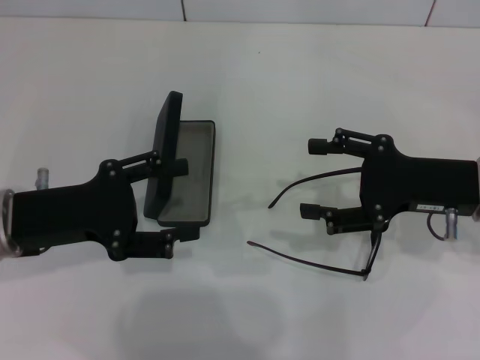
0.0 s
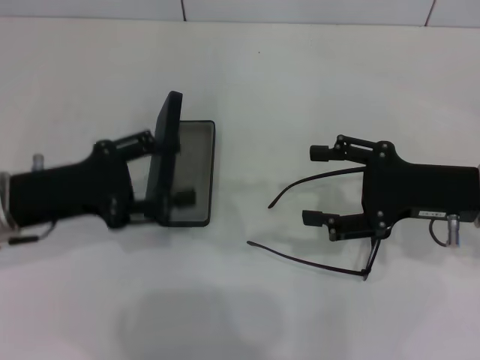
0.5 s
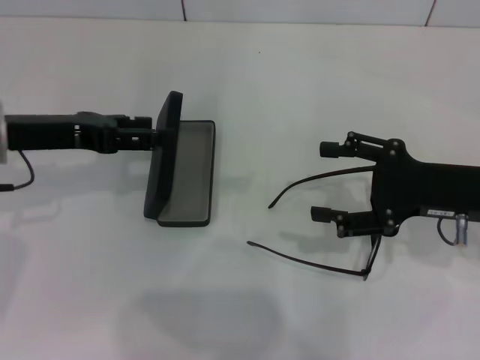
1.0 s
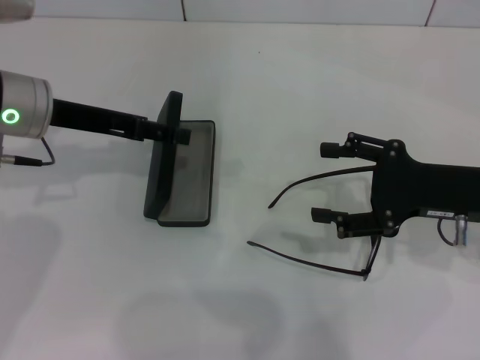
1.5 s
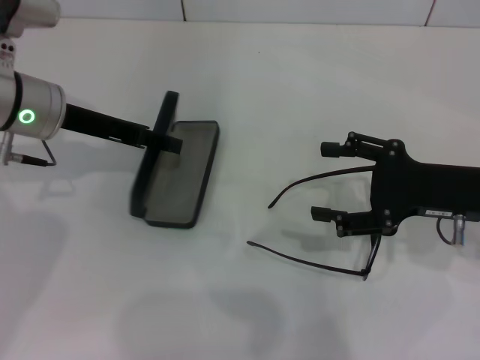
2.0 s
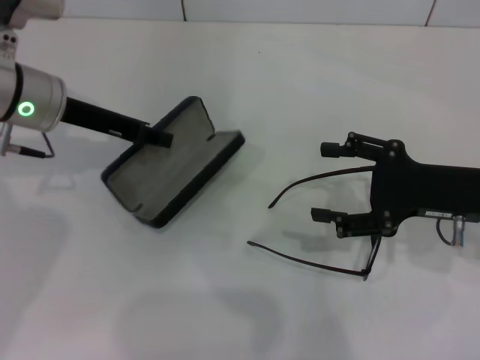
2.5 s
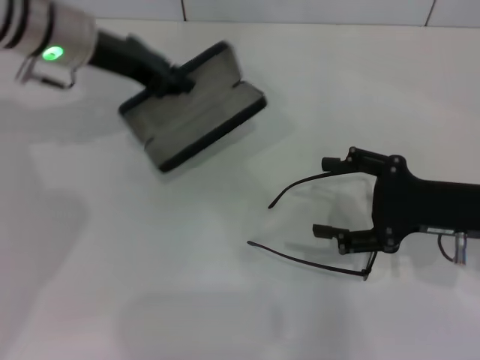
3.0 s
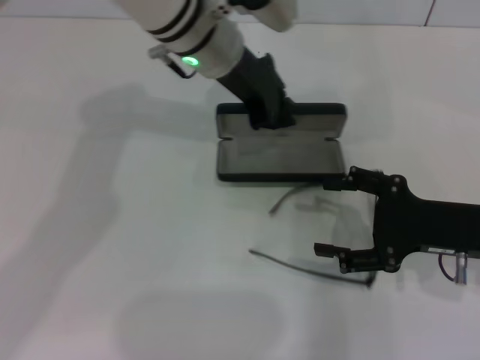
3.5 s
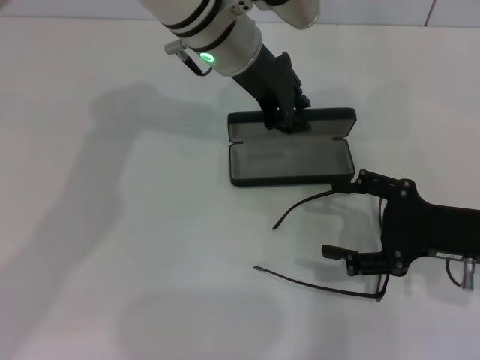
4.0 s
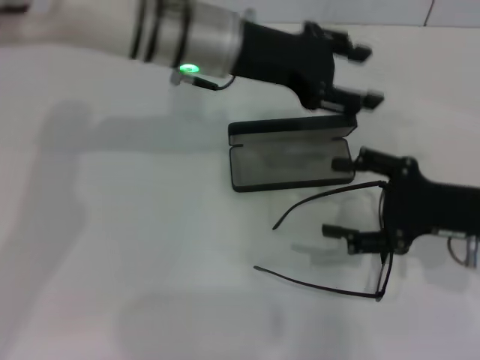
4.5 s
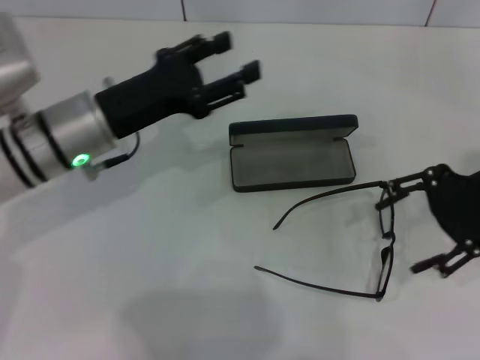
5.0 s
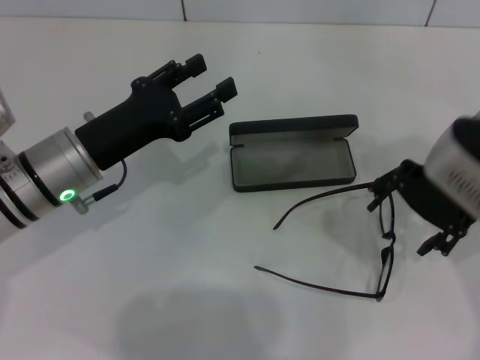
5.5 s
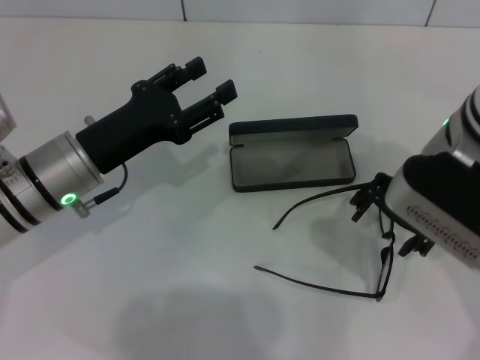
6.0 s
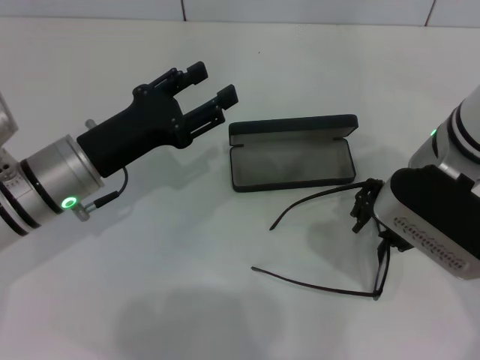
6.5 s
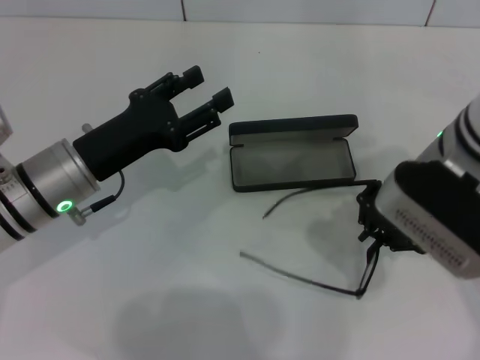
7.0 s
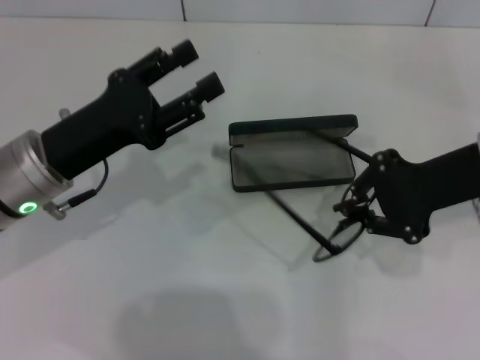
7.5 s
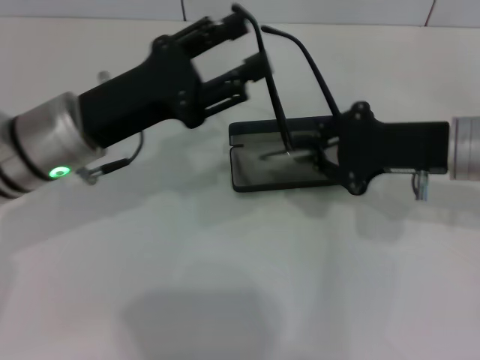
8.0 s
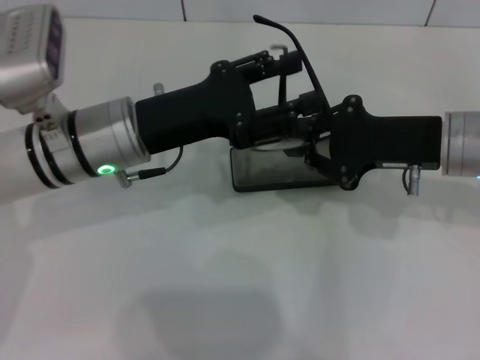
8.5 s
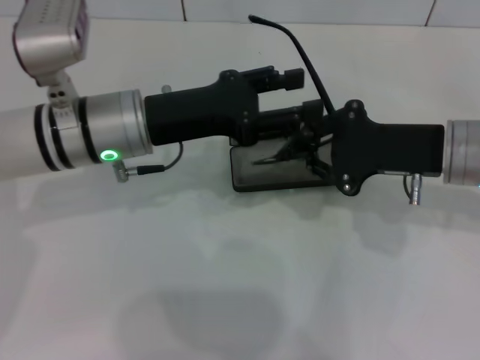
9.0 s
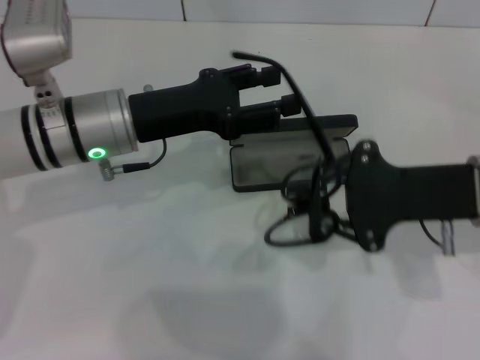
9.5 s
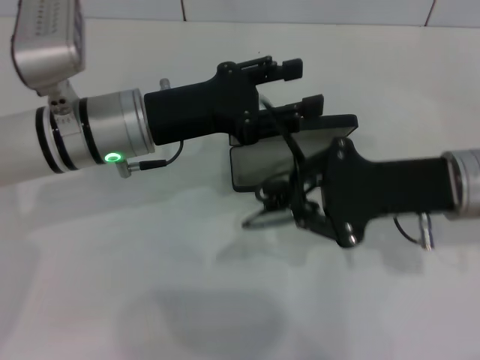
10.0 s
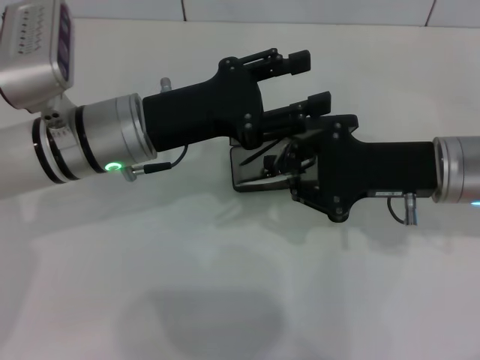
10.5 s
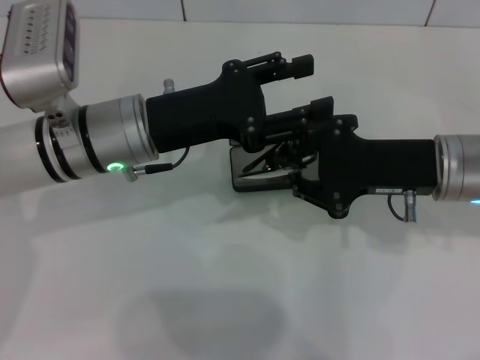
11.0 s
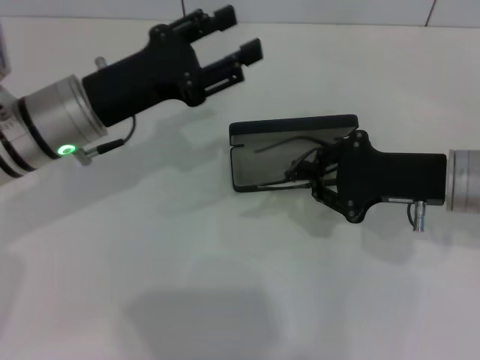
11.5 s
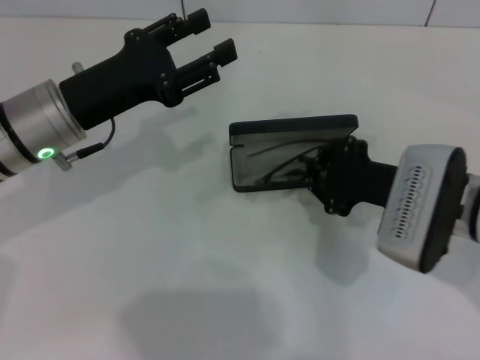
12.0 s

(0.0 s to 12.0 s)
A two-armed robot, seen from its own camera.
Step, 0.0 s - 2.0 s: Grab the glasses case with your left hand.
Step, 3.0 s - 4.0 s: Place the glasses case in the center of the table with your left hand.
Step, 4.5 s - 6.5 s: Grab the eyeglass frame with your right hand.
Step, 7.0 s - 11.0 s: Lift the glasses with your right hand.
0.0 s - 2.0 s: The left gripper goes approximately 10 cm forward.
2.0 s - 4.0 s: The left gripper heads to the right, covering some 20 cm, and closes its fingers.
4.0 s - 6.0 s: The left gripper shifts approximately 25 cm to the left, backward and downward, and opens up, while the right gripper heads to the left, upward and forward, covering some 15 cm.
6.0 s - 8.0 s: The left gripper ends up roughly 5 cm from where it was; the right gripper moves to the right, some 5 cm, and closes up.
10.0 s - 12.0 s: The left gripper is displaced to the left by approximately 5 cm.

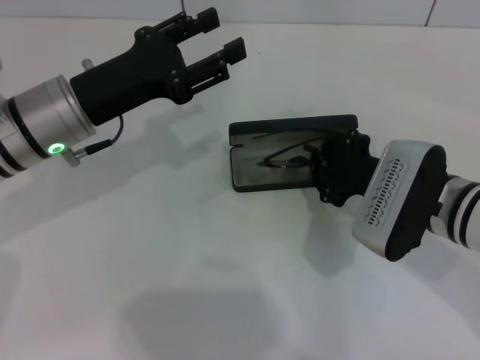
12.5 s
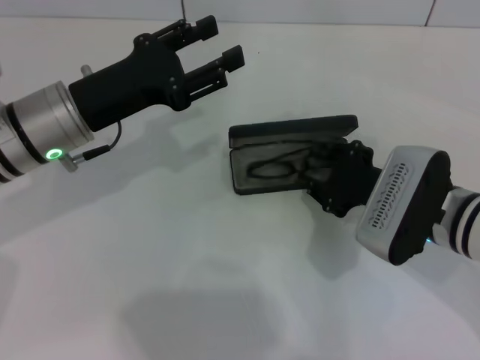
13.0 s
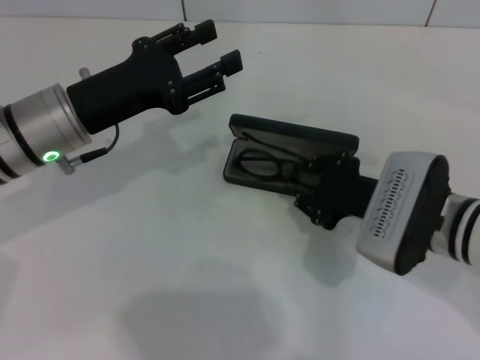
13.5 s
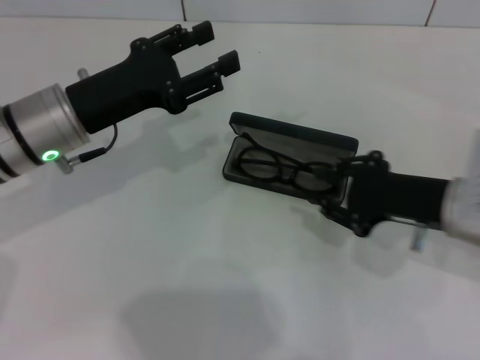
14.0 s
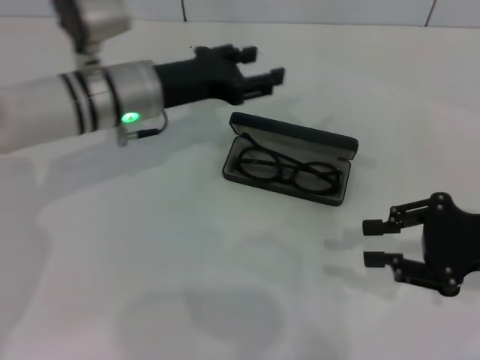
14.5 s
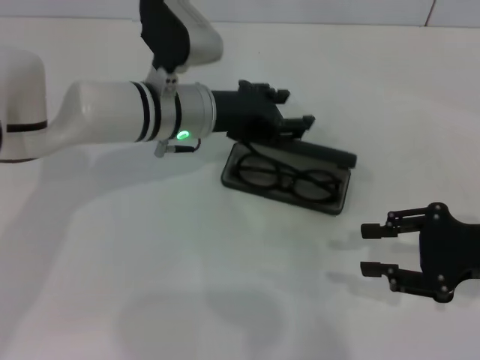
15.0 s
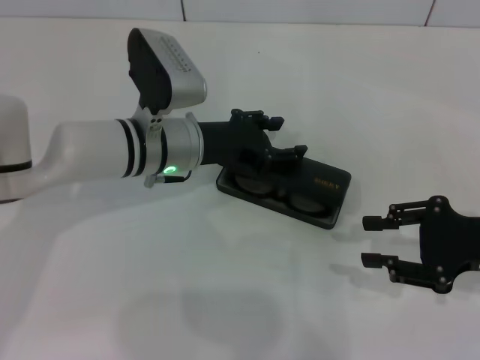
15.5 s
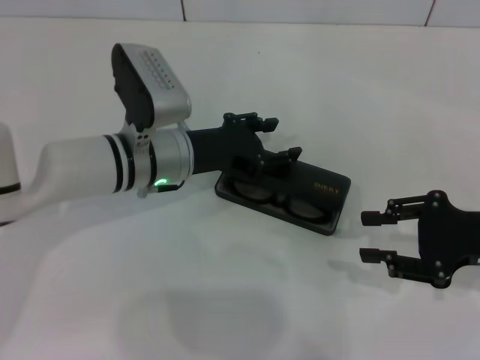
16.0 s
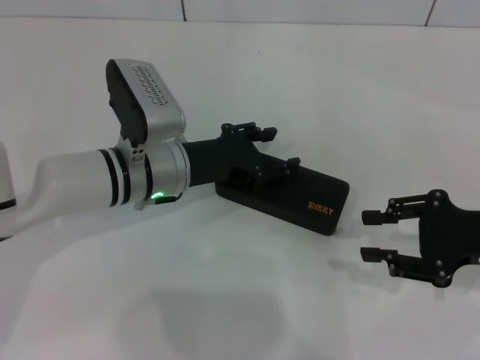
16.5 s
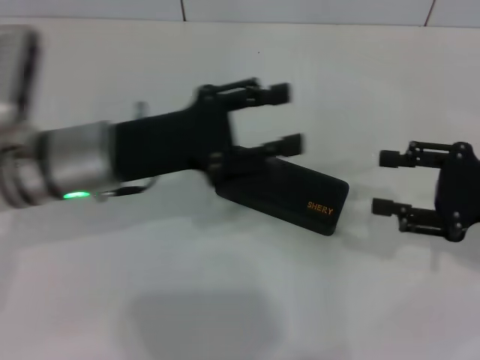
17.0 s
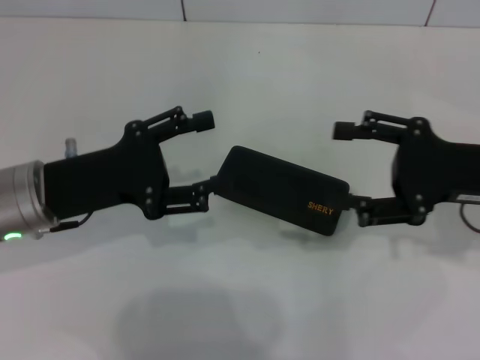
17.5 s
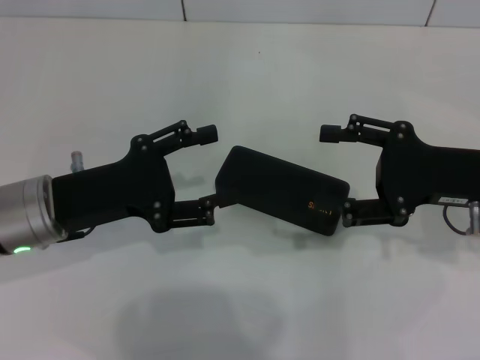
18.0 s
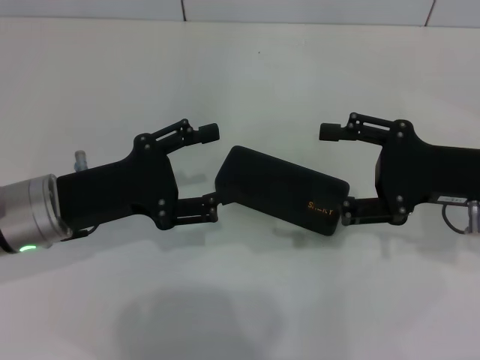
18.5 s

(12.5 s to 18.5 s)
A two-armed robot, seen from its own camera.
Step, 14.0 s - 16.0 s: Close the glasses case with your left hand.
12.5 s - 14.5 s: The right gripper is displaced to the right by approximately 10 cm. Meanwhile the left gripper is displaced forward and to the right by about 10 cm.
14.5 s - 16.5 s: The left gripper is displaced downward by about 5 cm.
16.5 s - 18.5 s: The left gripper shifts about 10 cm to the left and backward. The right gripper changes place by about 5 cm, and opens up.

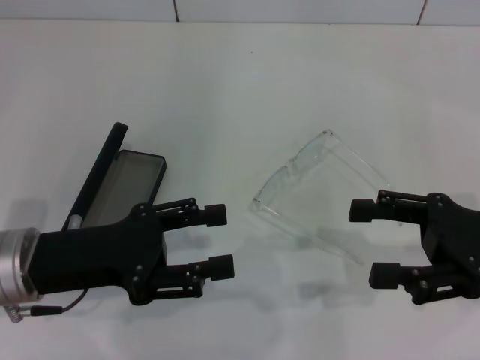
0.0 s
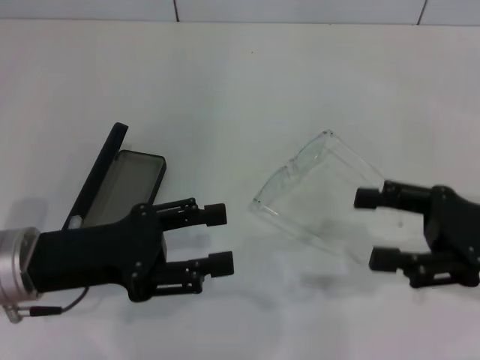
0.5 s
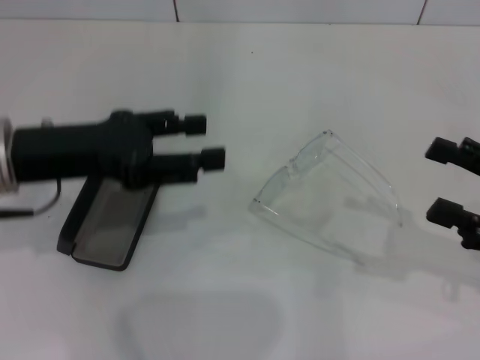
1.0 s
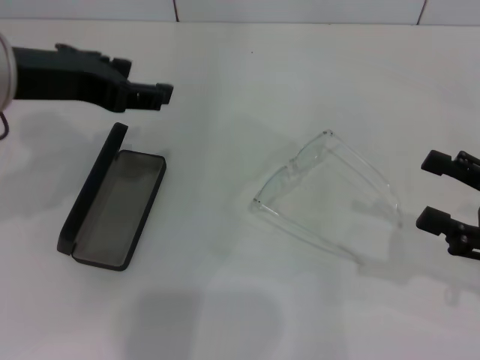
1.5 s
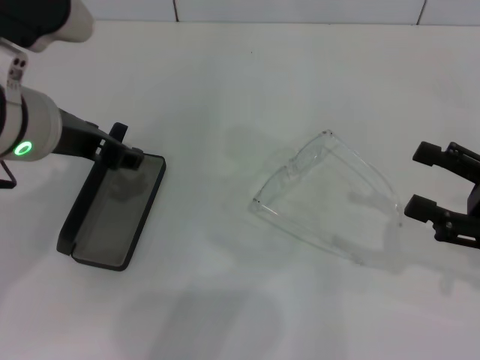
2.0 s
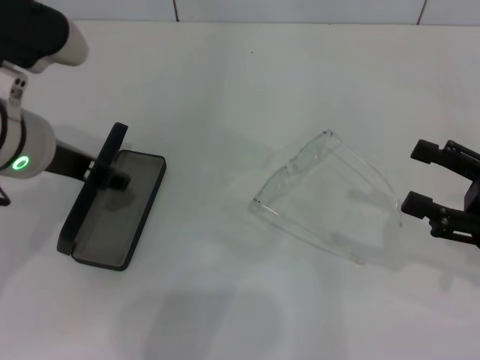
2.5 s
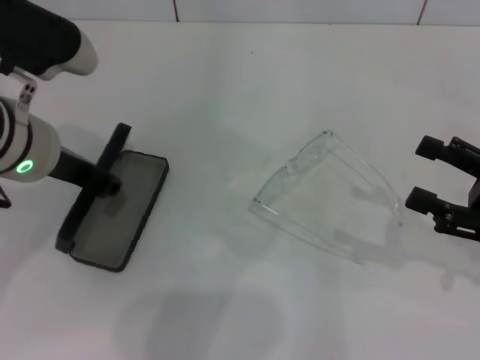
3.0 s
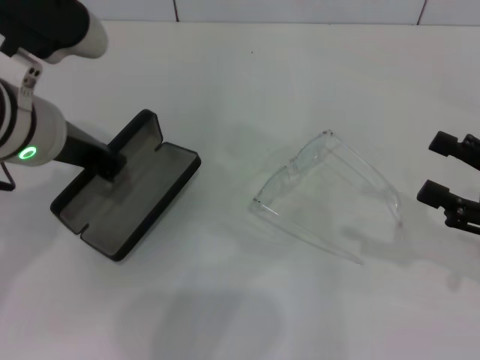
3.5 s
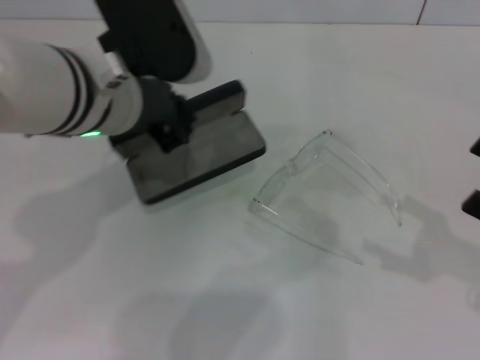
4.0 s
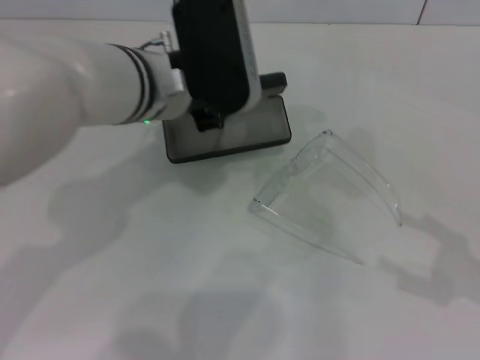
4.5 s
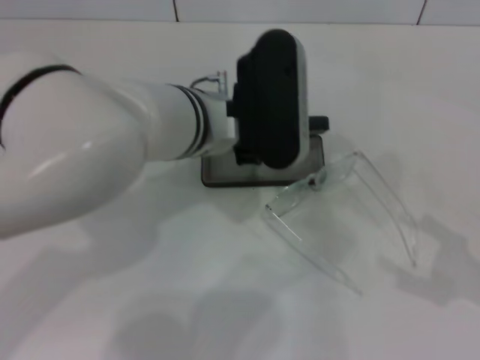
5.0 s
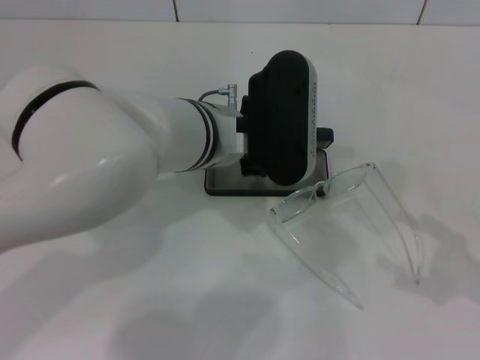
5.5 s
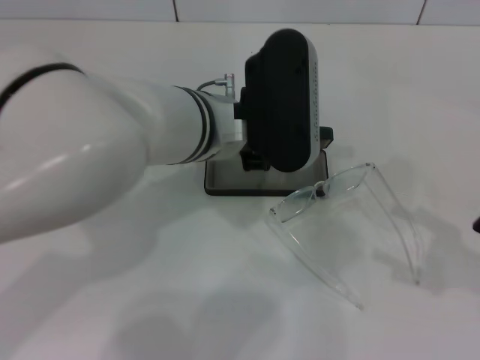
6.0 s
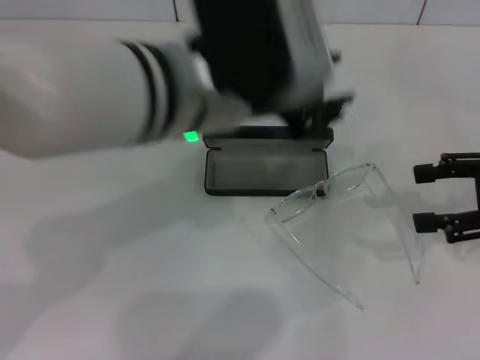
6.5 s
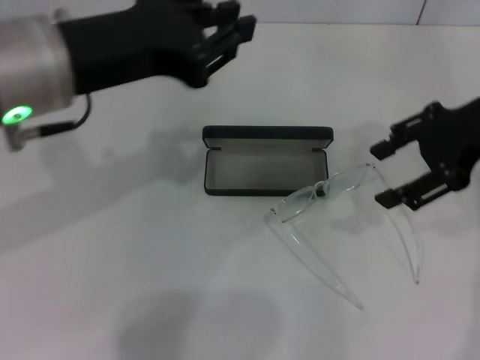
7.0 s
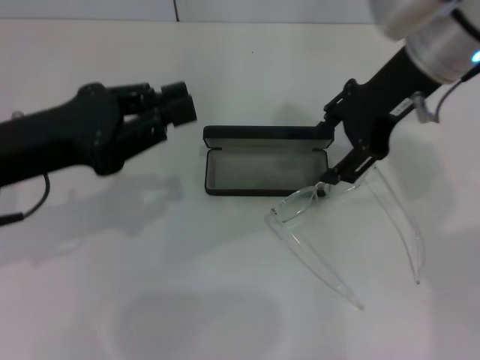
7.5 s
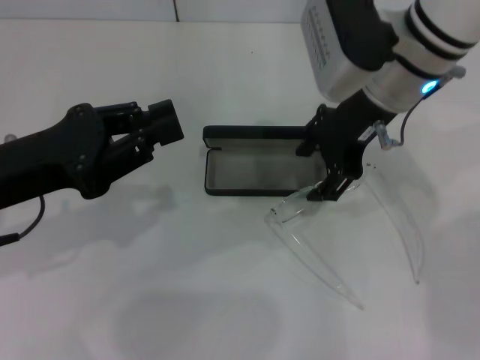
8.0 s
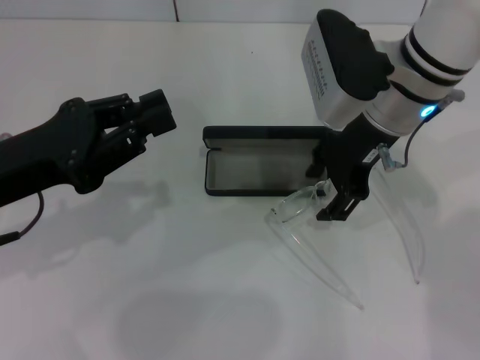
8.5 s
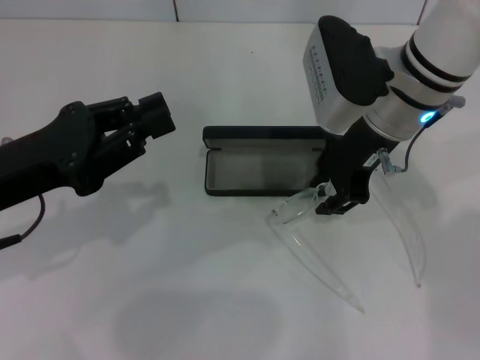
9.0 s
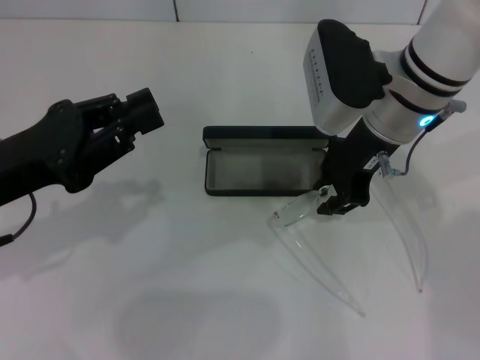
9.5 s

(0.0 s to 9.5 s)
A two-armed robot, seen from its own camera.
Step, 0.0 s - 3.0 s: Grab the glasses case with your left hand.
Step, 3.5 s - 6.0 s: Place the glasses case in the center of the table with your left hand.
0.0 s - 2.0 s: The left gripper travels upward and forward by some 15 cm.
2.0 s - 4.0 s: The left gripper goes approximately 5 cm to the right, and closes up.
4.0 s - 5.5 s: The left gripper travels to the right and downward by about 10 cm.
5.5 s - 7.5 s: The right gripper shifts some 35 cm forward, to the left and upward. The left gripper travels to the left by roughly 20 cm.
7.5 s - 9.5 s: The right gripper is displaced downward by roughly 5 cm, and closes its fingers.
